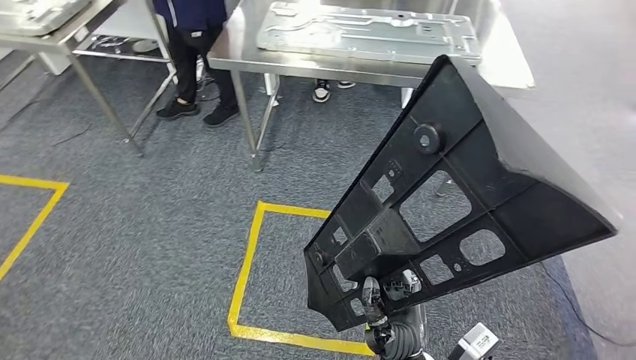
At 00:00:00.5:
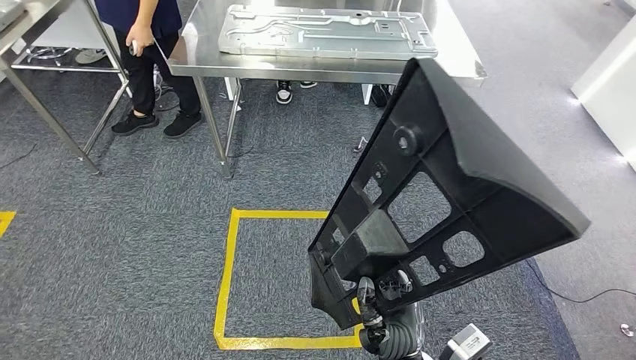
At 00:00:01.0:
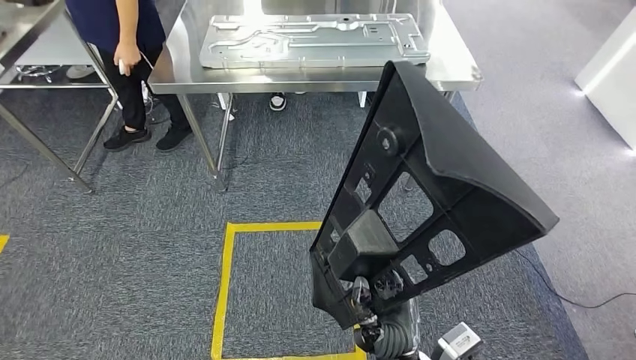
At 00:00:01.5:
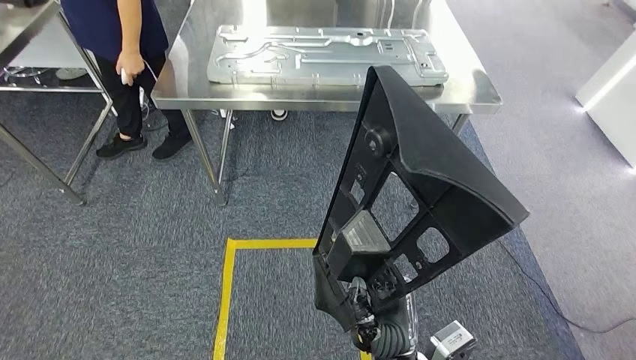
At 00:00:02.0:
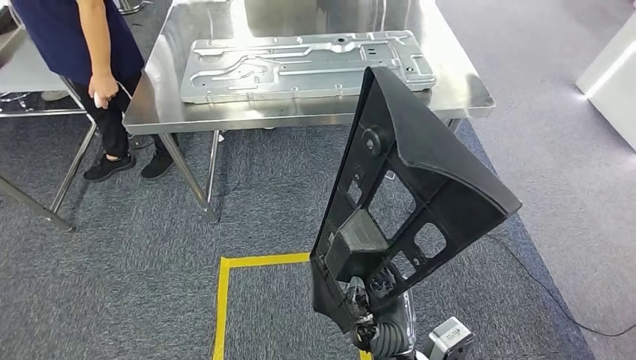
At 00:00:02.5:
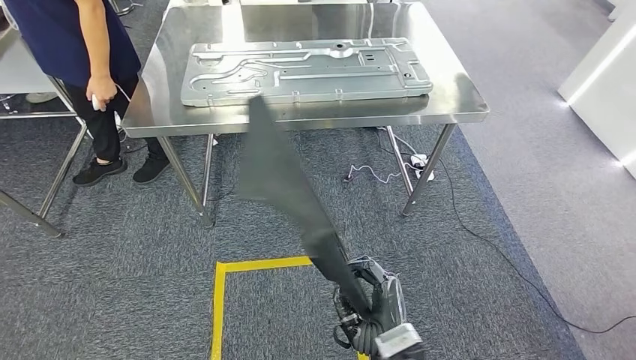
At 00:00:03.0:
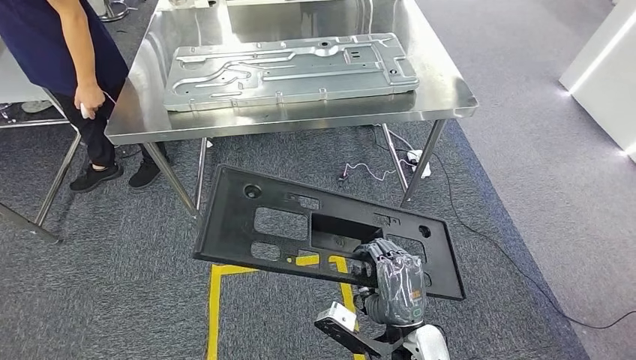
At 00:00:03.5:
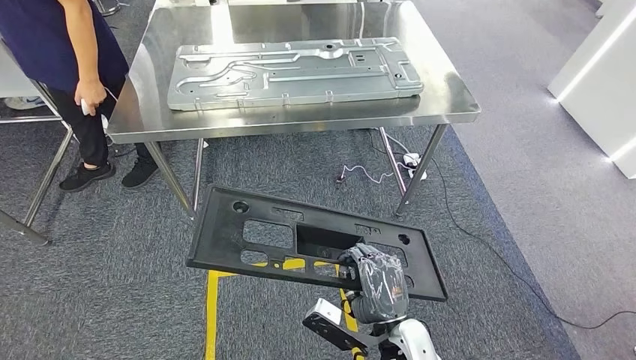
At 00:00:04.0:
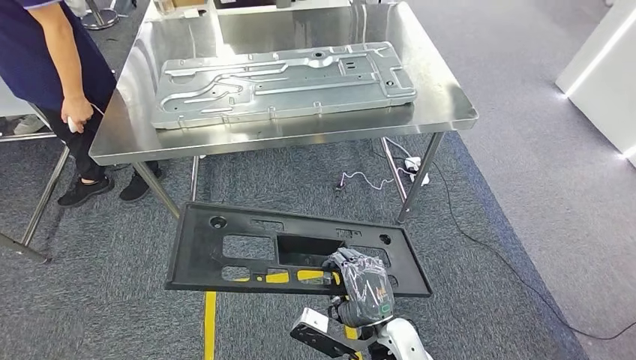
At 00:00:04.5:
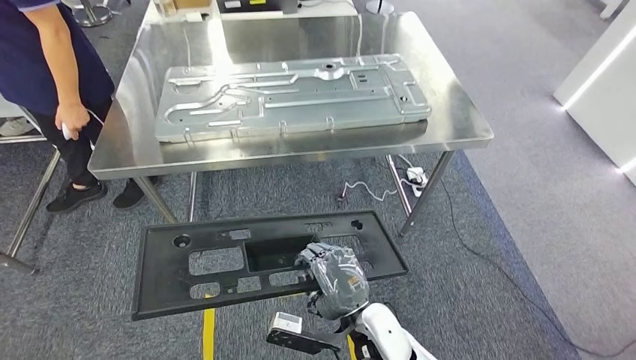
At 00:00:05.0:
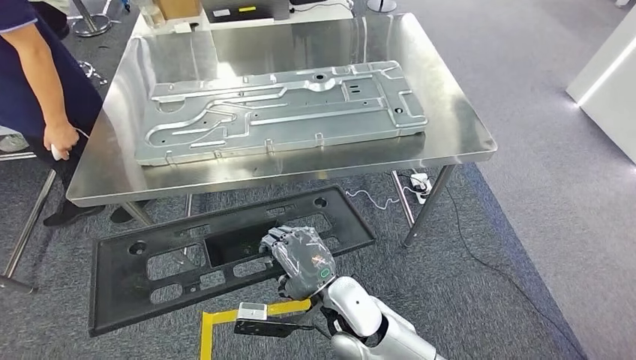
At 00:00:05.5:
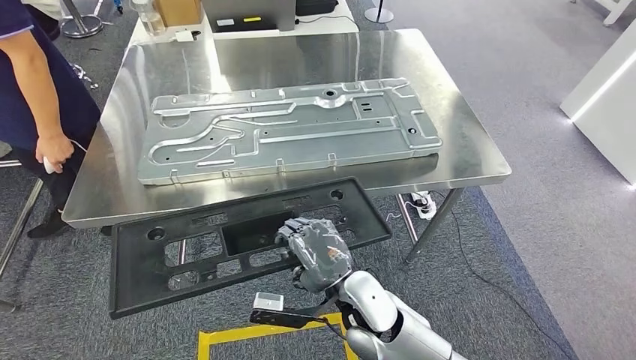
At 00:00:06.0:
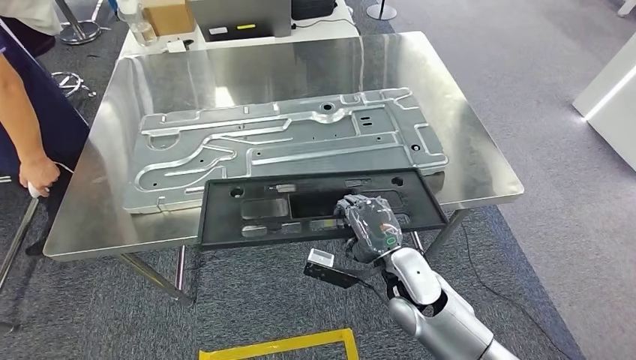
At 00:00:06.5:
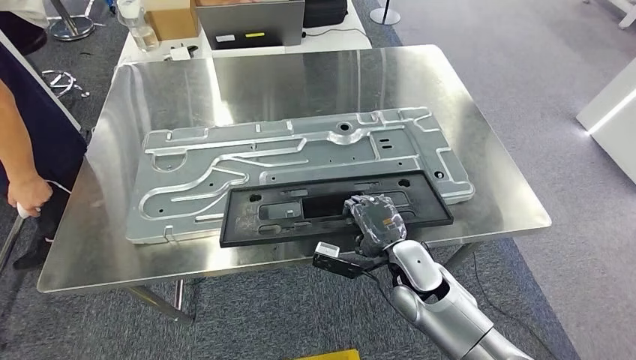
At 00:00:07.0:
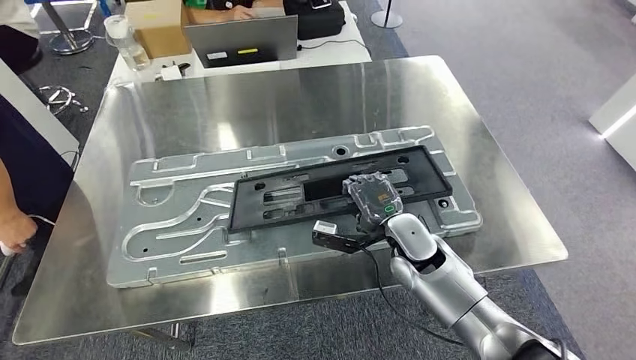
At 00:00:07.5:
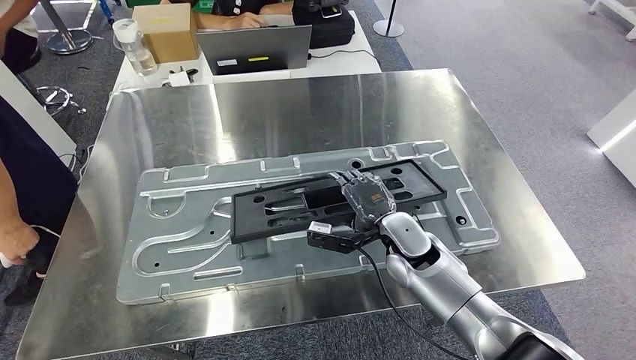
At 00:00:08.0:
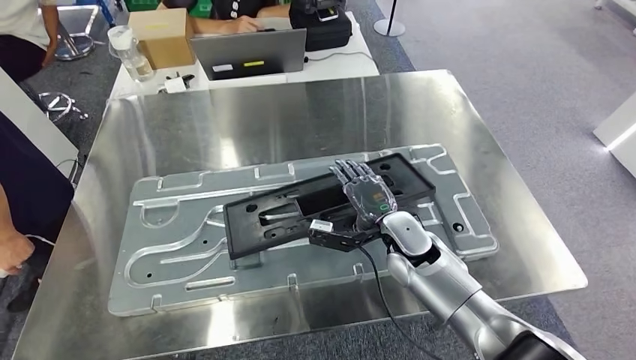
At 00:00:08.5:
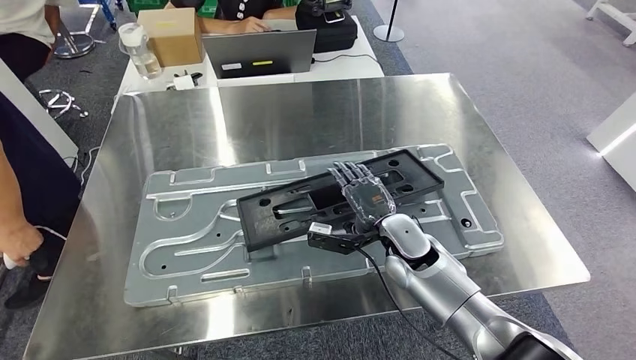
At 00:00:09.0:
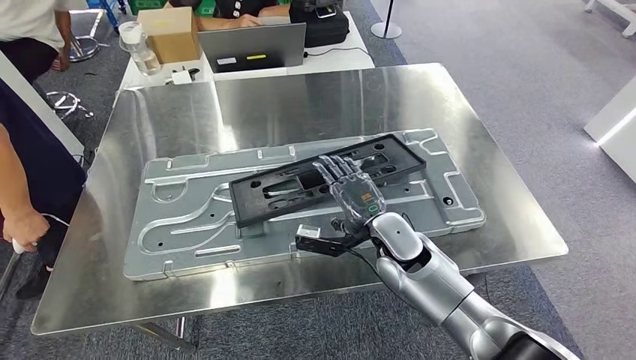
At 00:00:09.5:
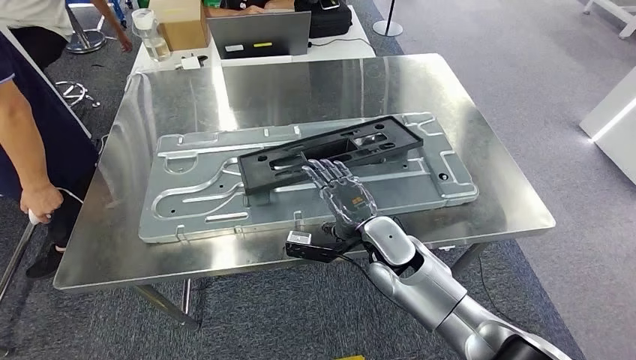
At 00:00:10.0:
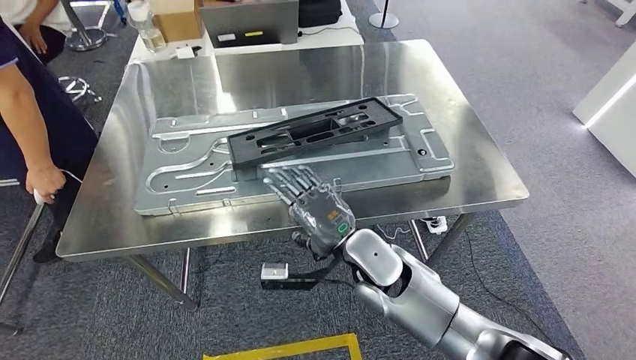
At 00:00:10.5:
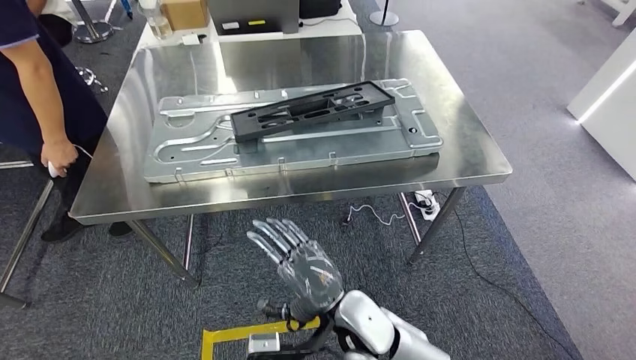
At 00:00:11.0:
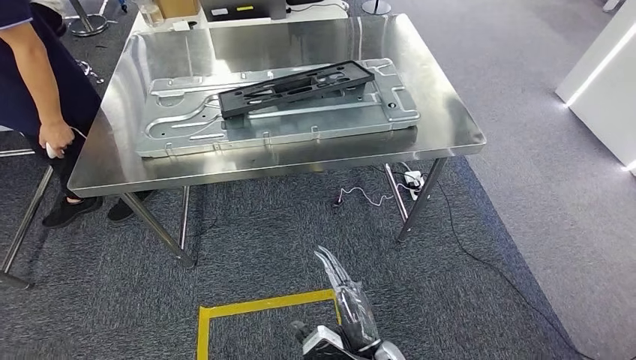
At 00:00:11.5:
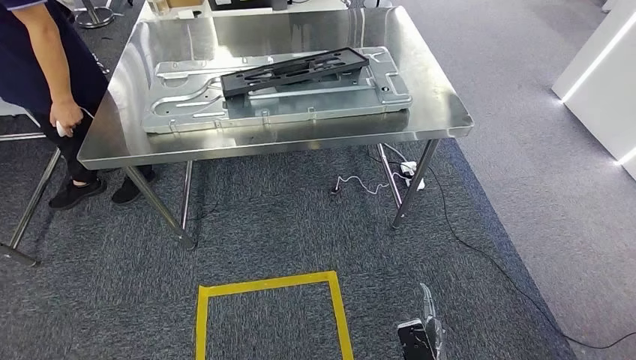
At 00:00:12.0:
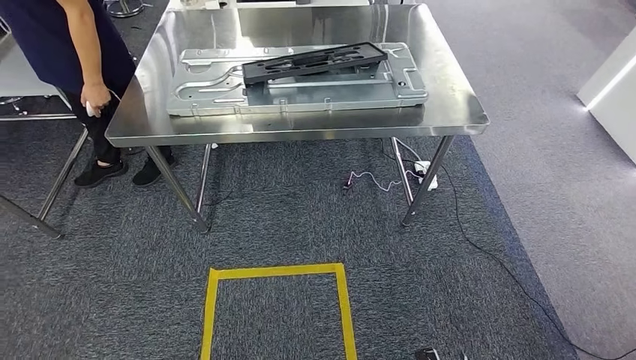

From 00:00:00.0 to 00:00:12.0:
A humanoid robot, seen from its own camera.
Step, from 00:00:00.0 to 00:00:04.5: Move the large material to the workbench.

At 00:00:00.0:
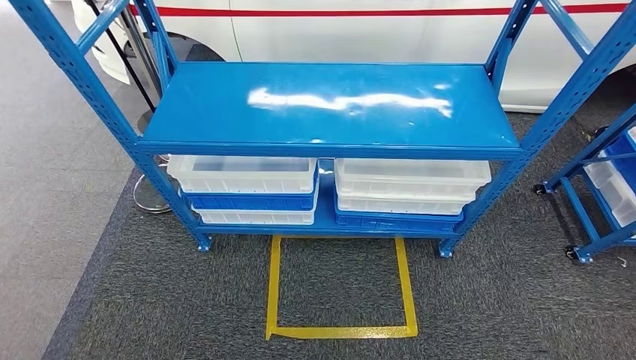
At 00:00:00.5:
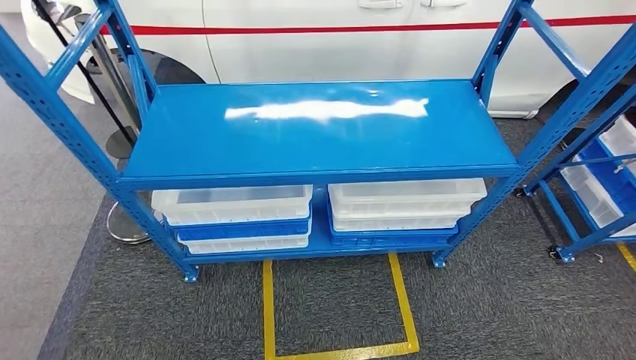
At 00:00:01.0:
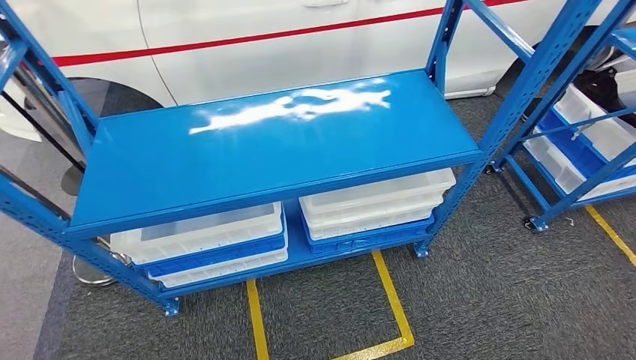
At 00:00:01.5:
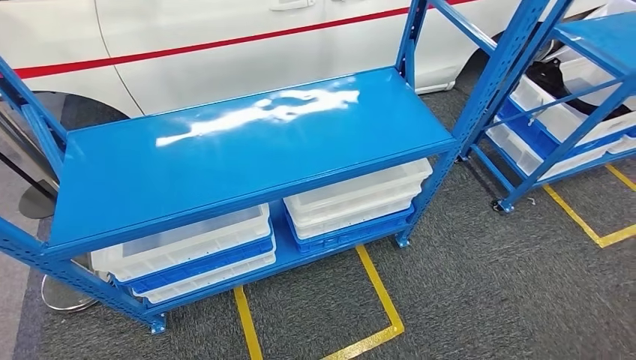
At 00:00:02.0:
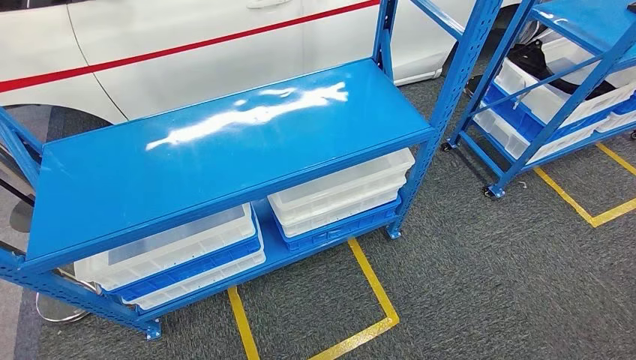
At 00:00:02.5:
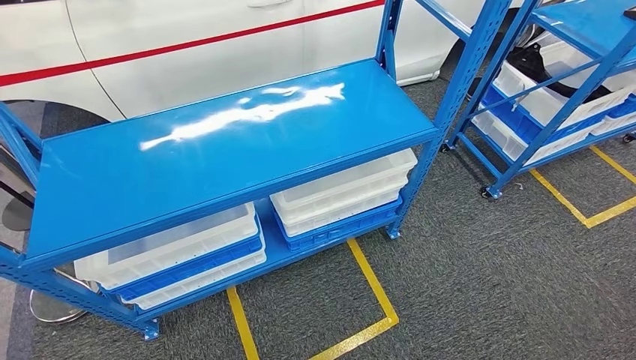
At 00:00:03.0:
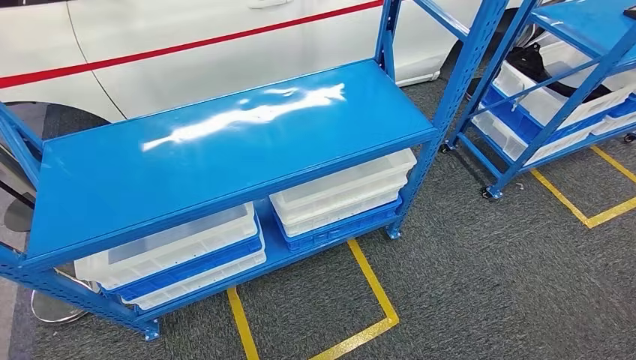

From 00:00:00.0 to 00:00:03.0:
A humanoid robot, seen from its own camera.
Step, from 00:00:00.0 to 00:00:02.5: Move to the initial position of the shelf.

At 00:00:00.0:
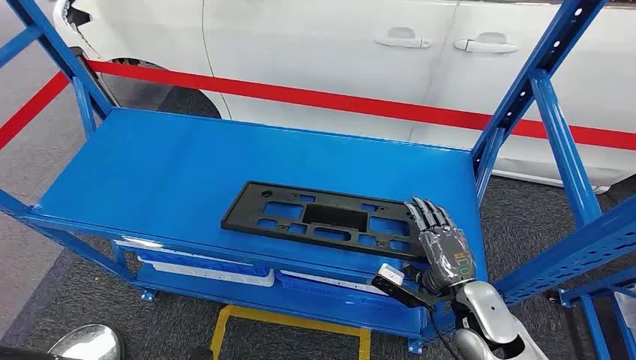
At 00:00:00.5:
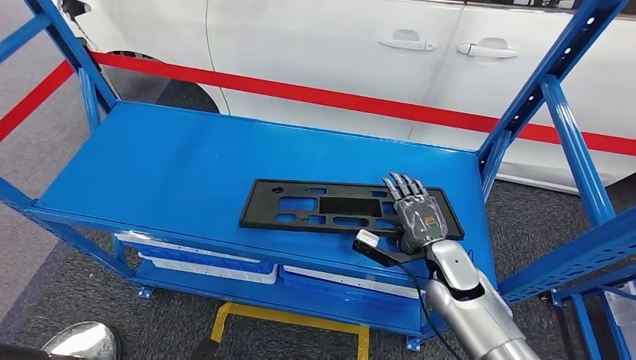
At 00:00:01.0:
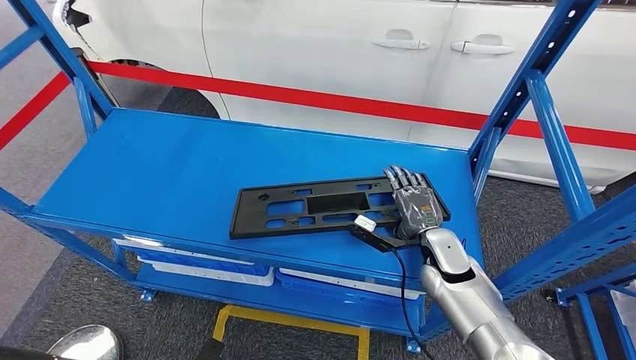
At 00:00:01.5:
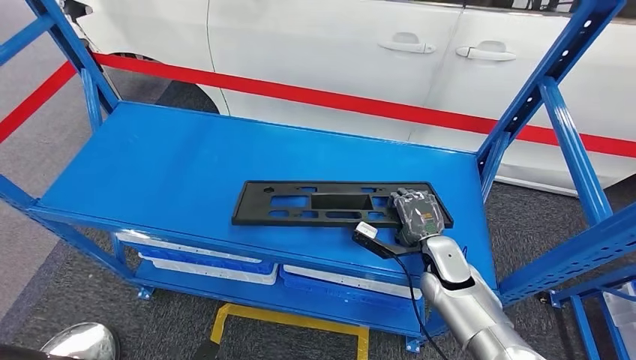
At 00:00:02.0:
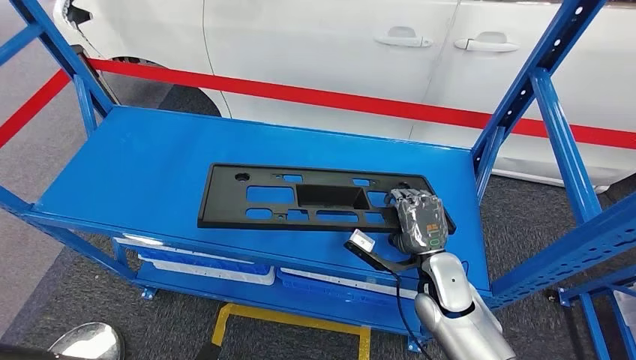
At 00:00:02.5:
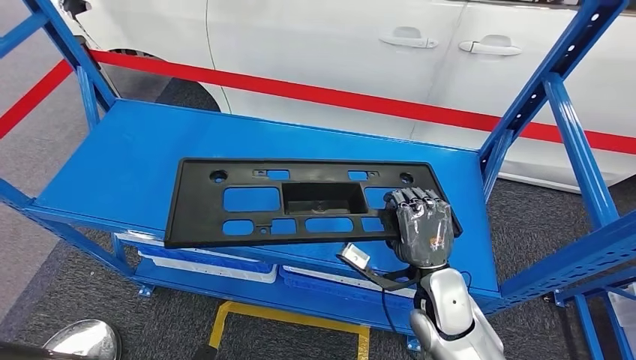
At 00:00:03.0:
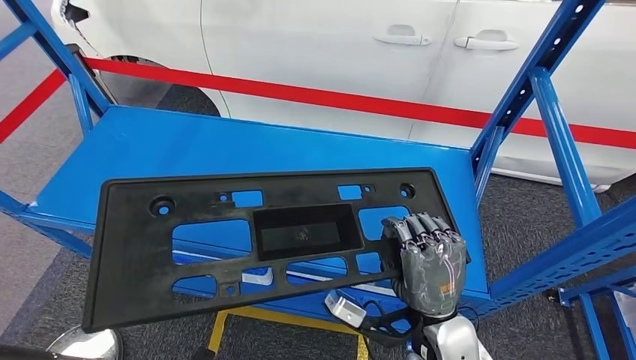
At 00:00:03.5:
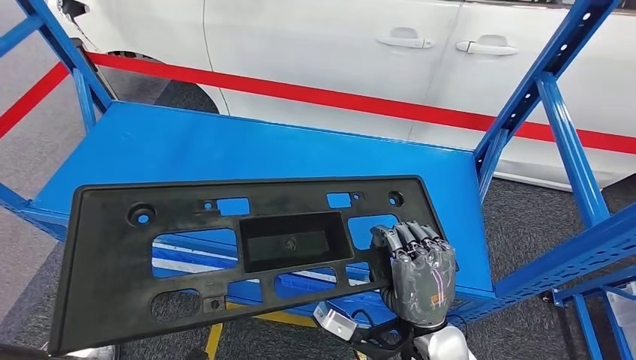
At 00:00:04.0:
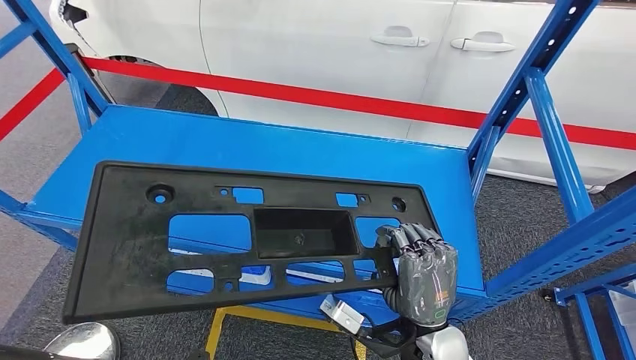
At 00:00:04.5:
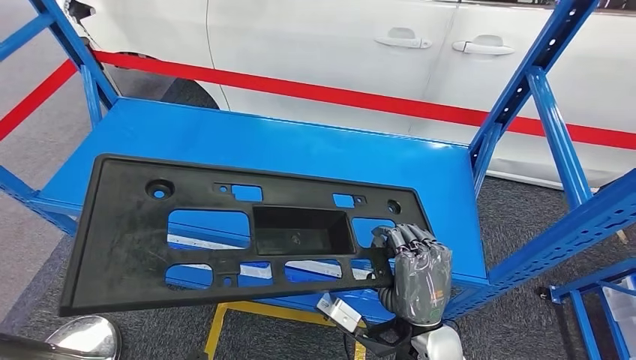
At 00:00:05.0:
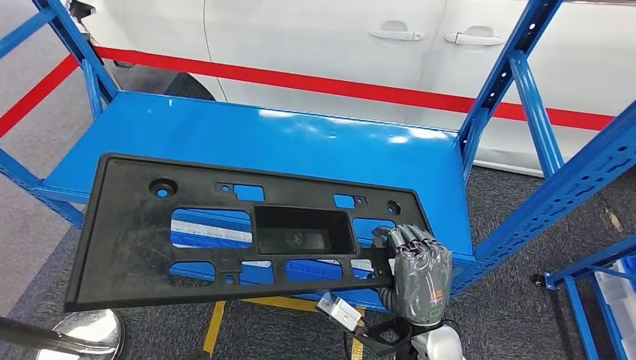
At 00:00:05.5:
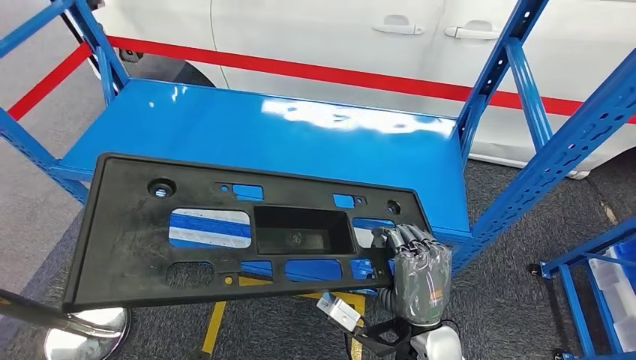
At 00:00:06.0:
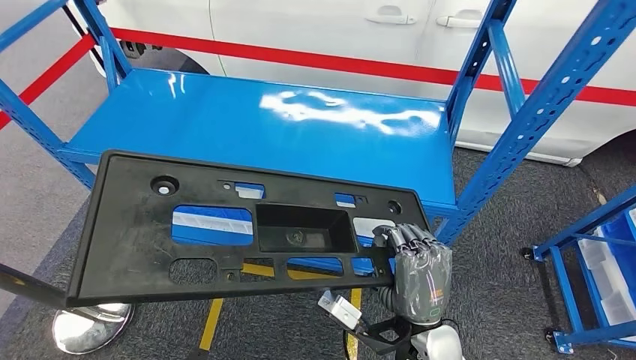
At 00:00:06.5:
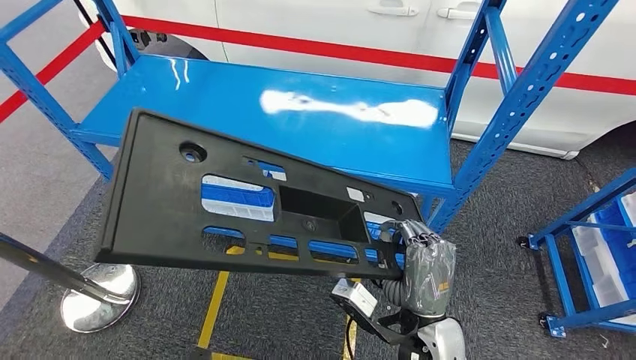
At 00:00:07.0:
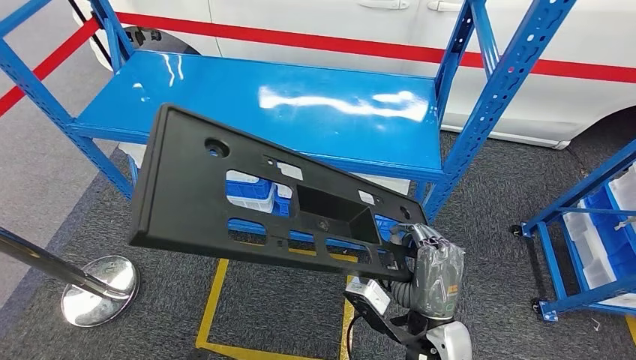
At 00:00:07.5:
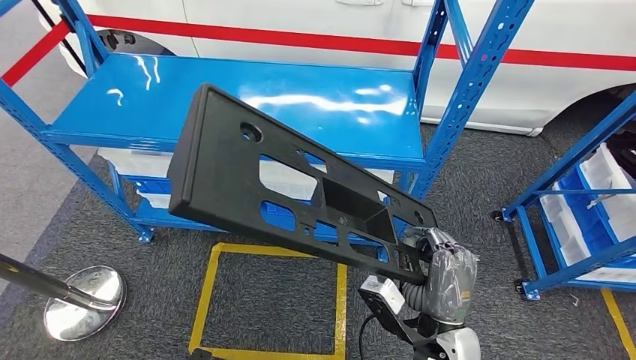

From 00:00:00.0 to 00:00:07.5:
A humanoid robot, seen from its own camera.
Step, from 00:00:00.0 to 00:00:06.0: Pick up the large material from the shelf.
